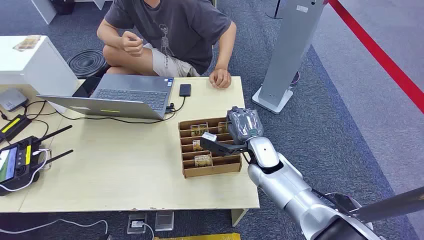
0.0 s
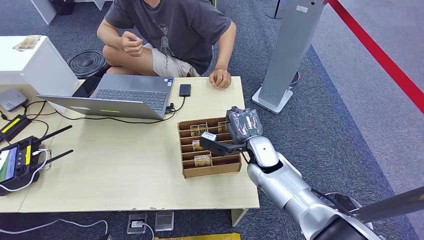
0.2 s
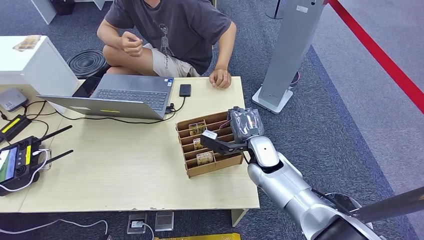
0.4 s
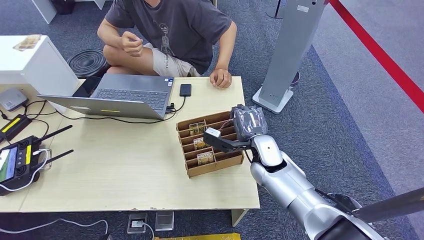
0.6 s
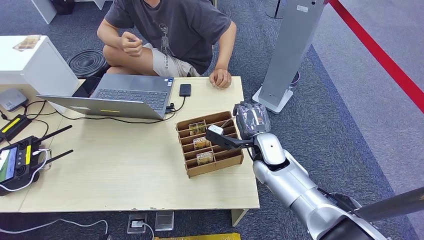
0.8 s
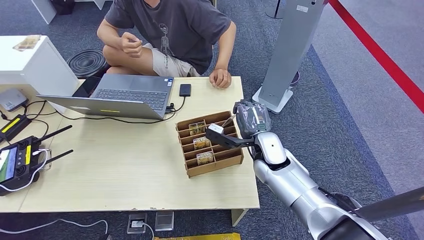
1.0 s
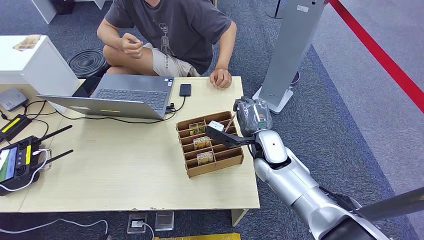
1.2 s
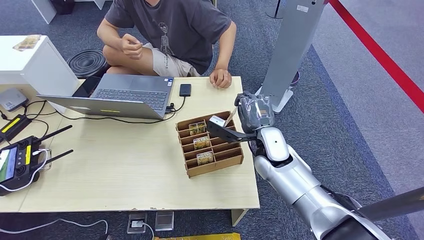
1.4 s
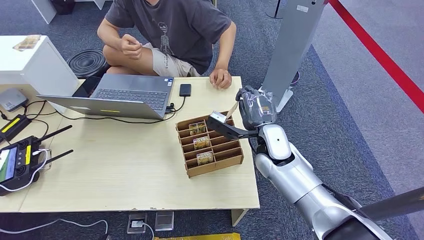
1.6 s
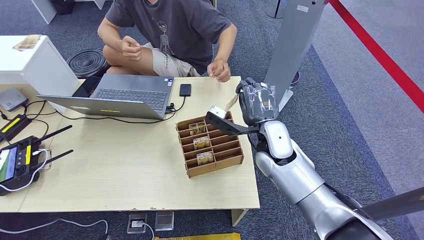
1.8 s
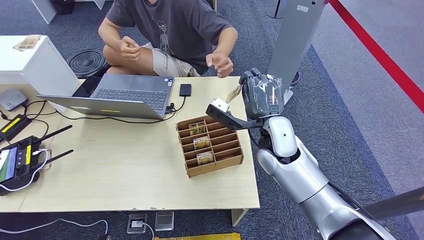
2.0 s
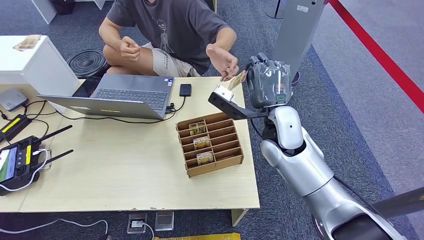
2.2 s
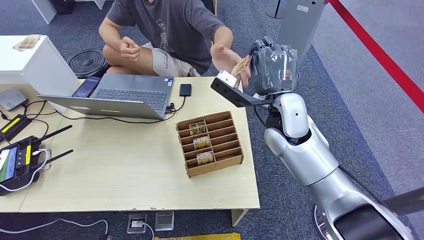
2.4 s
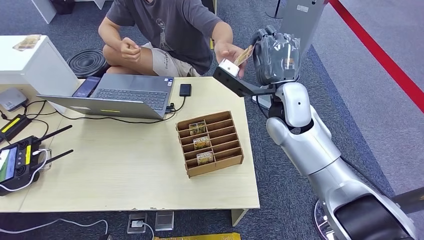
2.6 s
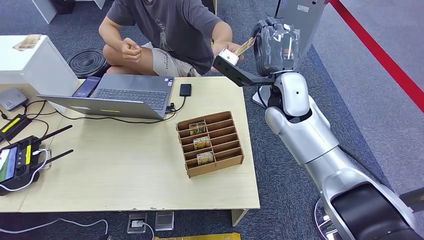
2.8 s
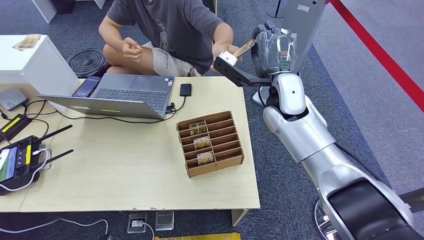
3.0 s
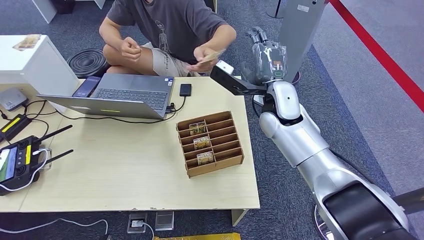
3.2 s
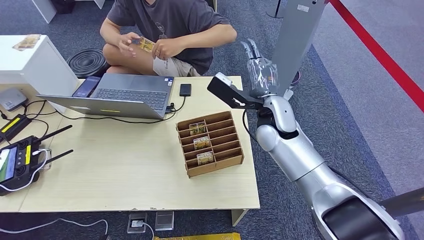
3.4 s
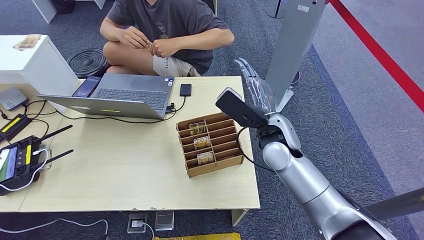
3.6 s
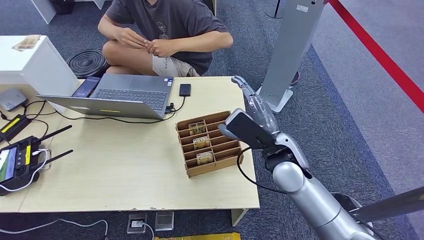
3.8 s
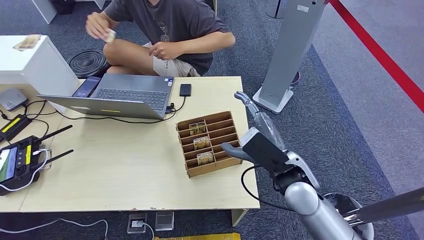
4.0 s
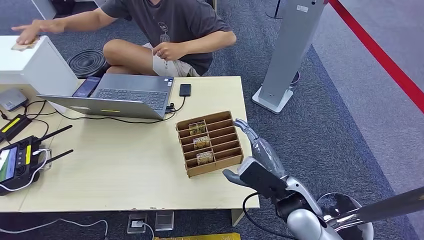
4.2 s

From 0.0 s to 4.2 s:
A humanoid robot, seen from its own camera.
Step, from 0.0 s to 1.8 s: Pick up the key card from the card box.
Step, from 2.0 s to 4.0 s: Hand the key card to the target.
From 1.4 s to 2.8 s: The right hand travels upward by approximately 15 cm.
